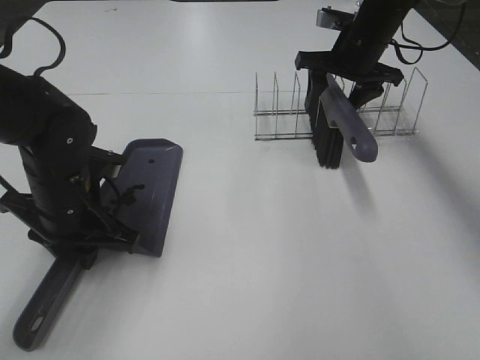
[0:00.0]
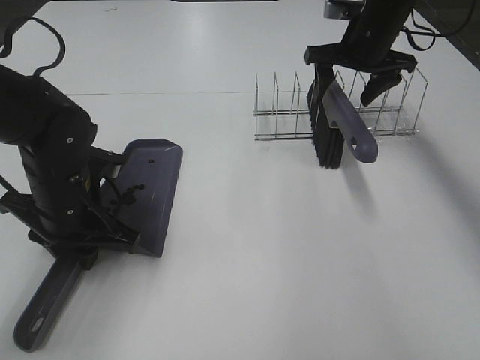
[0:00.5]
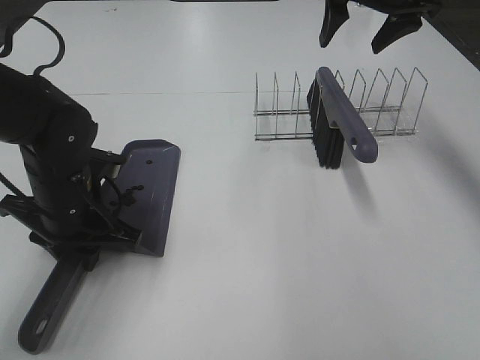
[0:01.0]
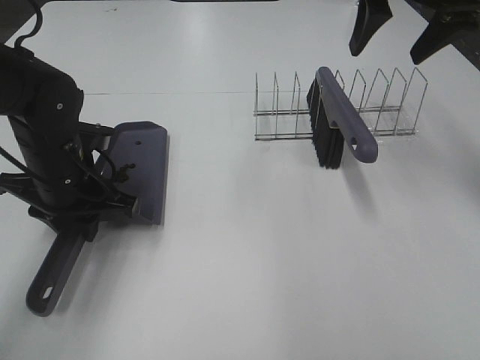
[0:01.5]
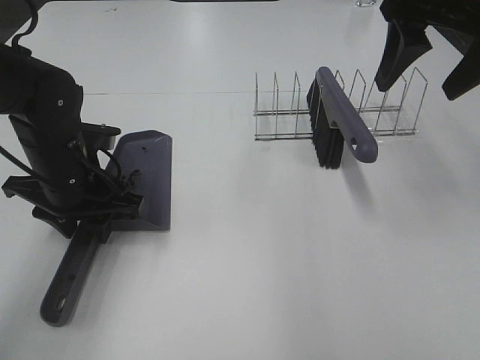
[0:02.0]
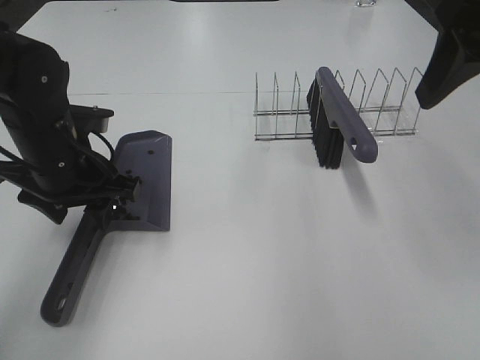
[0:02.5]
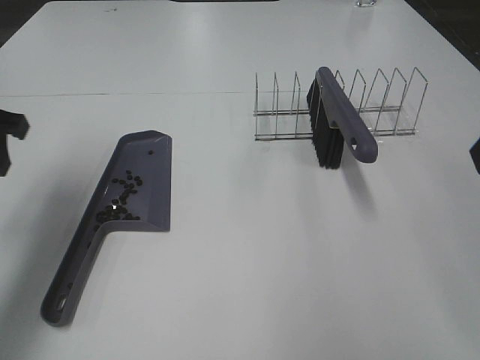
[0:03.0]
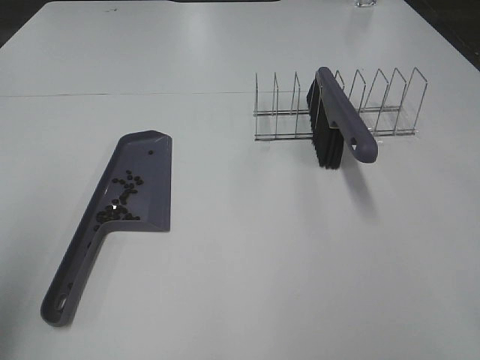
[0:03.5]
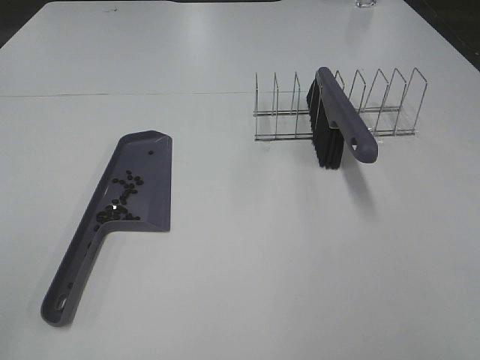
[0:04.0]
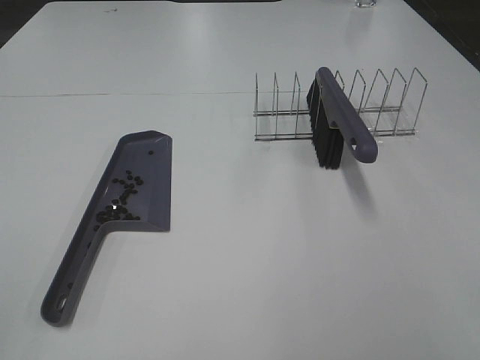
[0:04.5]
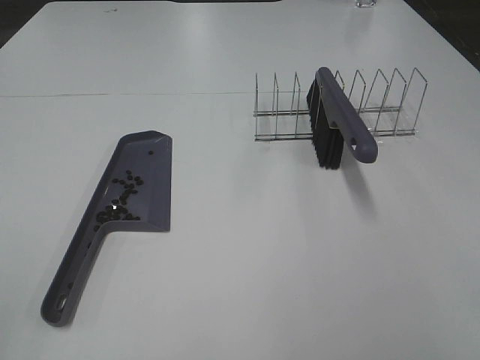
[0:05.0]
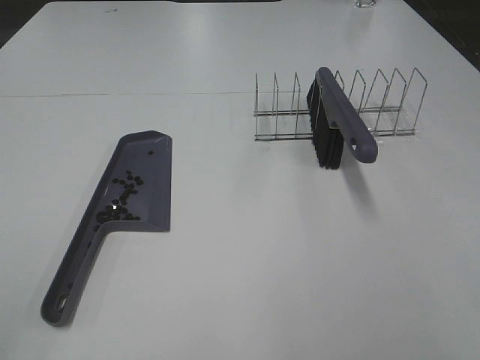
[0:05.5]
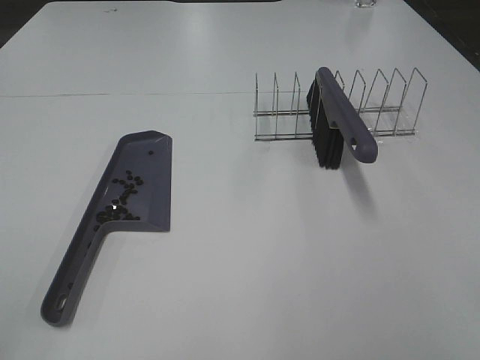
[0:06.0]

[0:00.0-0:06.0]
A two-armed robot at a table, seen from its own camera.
Task of the whole recording: Sweep Coffee Bean.
Step, 0:00.5 to 0:02.0: Left hand:place the dustpan on the table.
0:00.0 to 0:02.0: The right gripper moves backward and upward, roughly 25 cm.
0:02.0 to 0:04.0: The left gripper heads backward, upward and to the left, covering roughly 40 cm; the right gripper travels backward by approximately 30 cm.

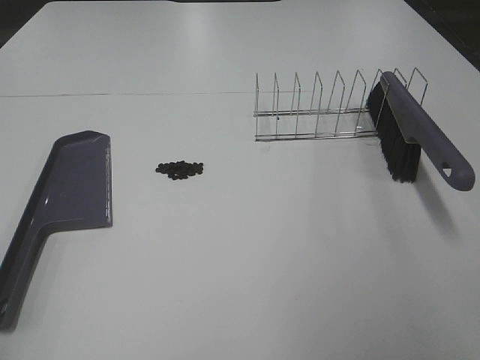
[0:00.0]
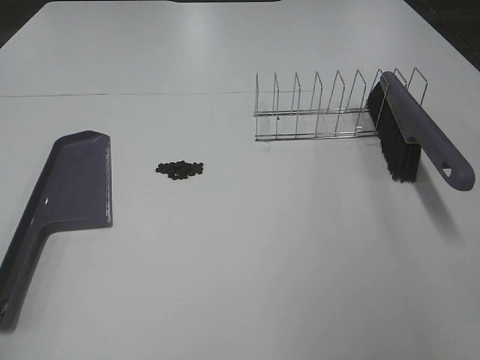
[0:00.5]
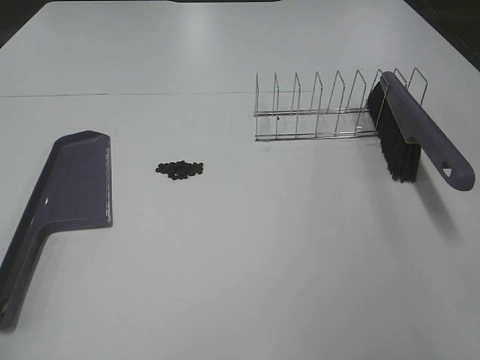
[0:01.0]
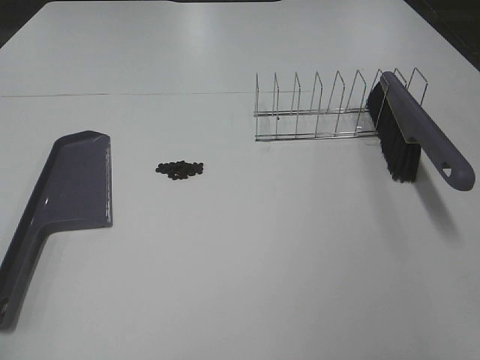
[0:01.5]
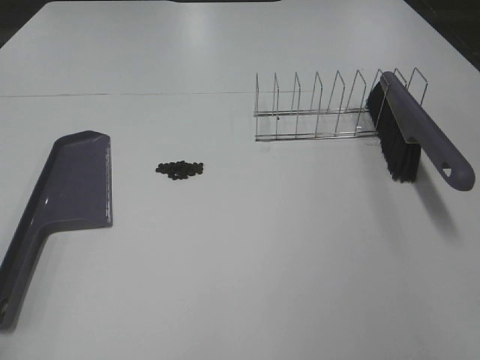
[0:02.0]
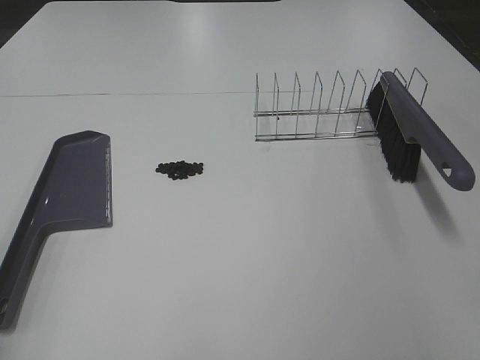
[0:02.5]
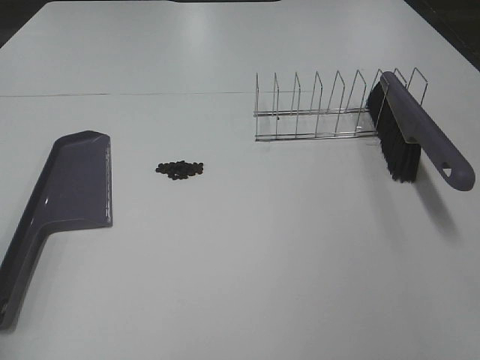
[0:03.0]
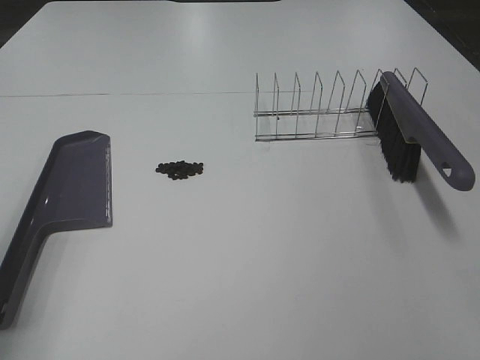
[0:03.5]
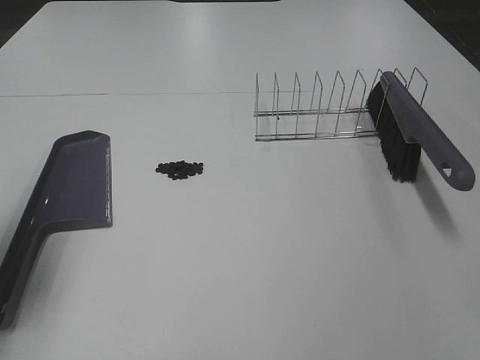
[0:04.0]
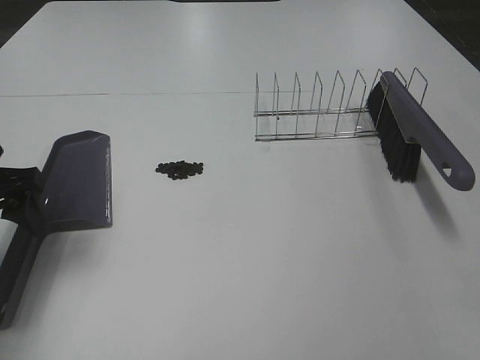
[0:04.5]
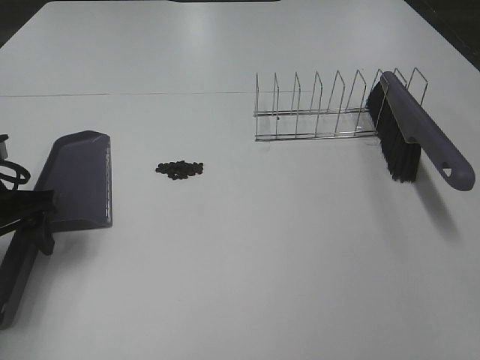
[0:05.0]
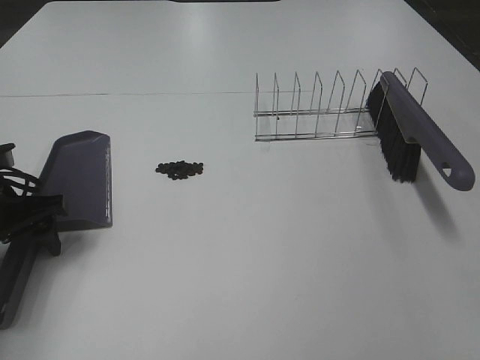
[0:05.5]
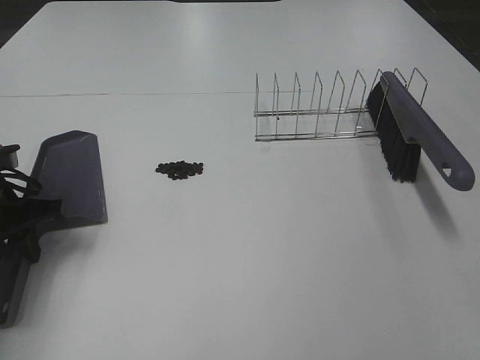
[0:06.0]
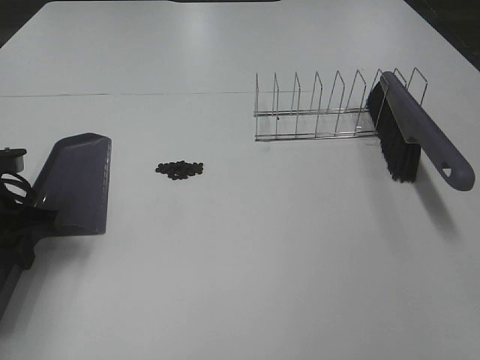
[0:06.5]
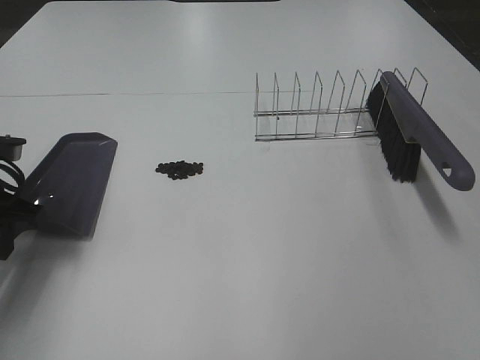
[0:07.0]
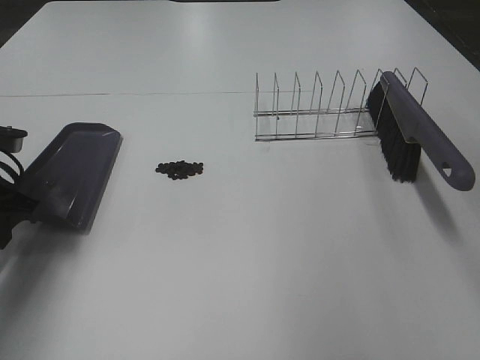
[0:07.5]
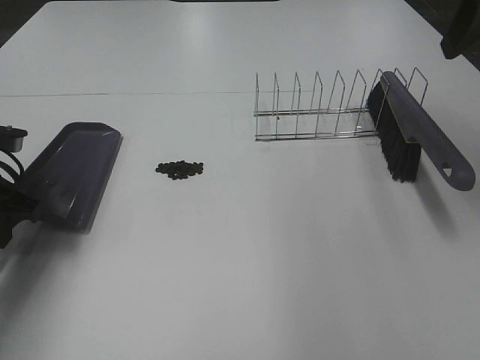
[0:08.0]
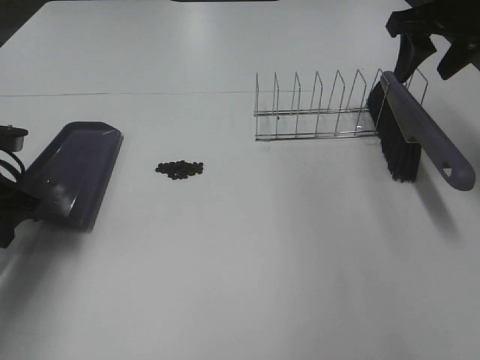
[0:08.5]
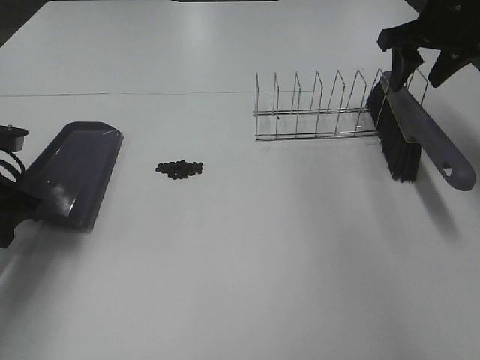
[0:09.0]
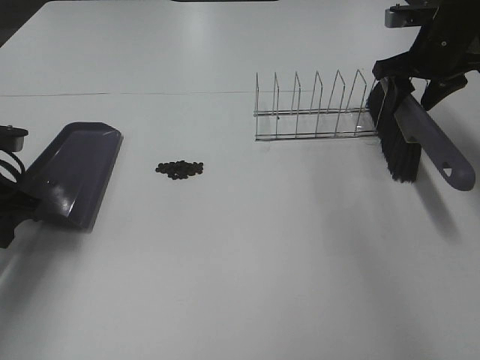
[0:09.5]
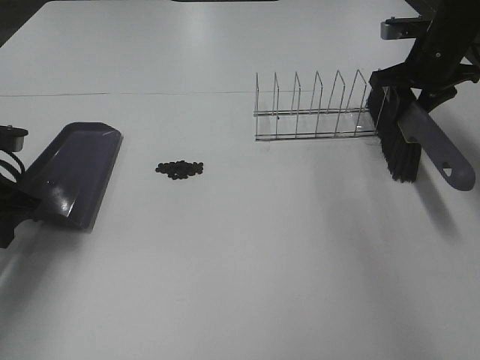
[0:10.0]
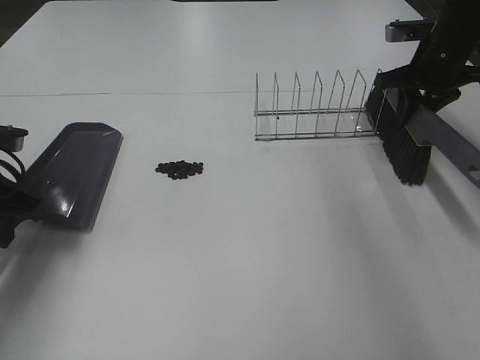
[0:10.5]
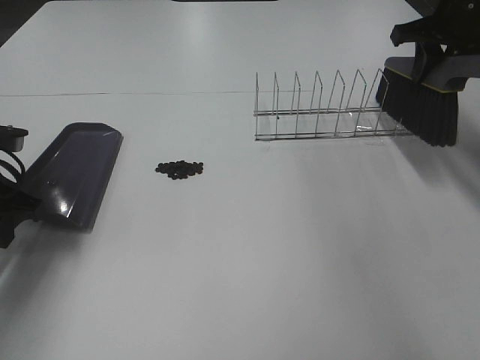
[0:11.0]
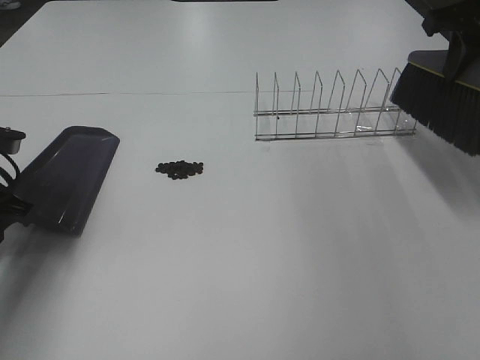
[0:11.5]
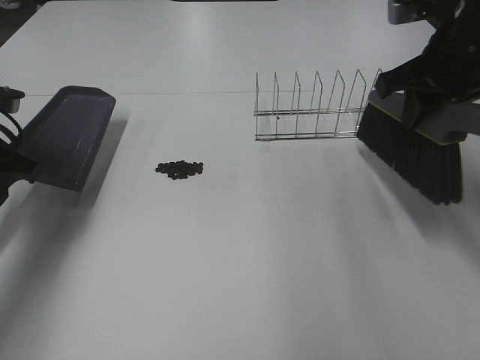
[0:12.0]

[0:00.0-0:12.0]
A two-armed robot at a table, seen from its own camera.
Task of the whole recording: Sweep Coffee Bean.
Step, 0:00.0 to 0:06.0: Left hand: grab the dustpan.
Step, 0:06.5 to 0:10.0: Right hand:grab the broom.
0:02.0 to 0:04.0: The left gripper moves forward, roughly 20 cm.
0:04.0 to 0:06.0: The left gripper heads downward and forward, covering roughly 15 cm, and closes.
0:06.0 to 0:08.0: The right gripper moves forward, approximately 30 cm.
0:08.0 to 0:10.0: The right gripper travels downward and forward by about 25 cm, and closes its fingers.
0:10.0 to 0:12.0: The right gripper moves backward, upward and to the left, about 15 cm.

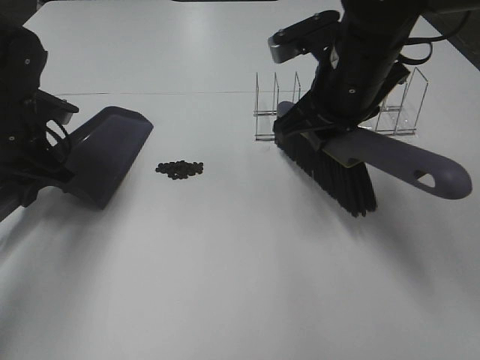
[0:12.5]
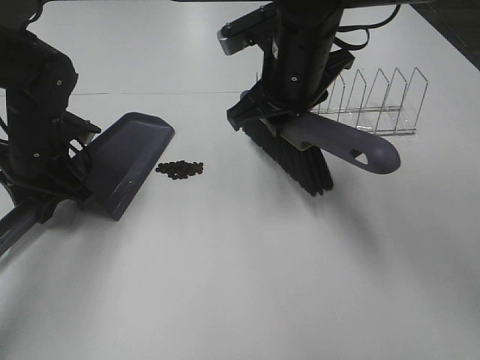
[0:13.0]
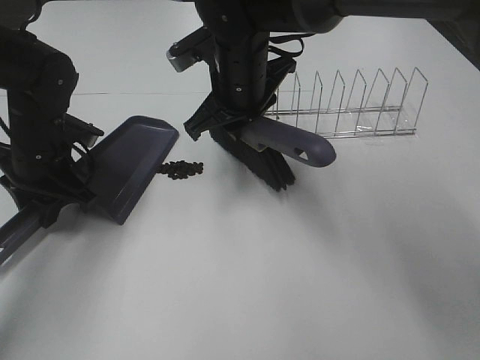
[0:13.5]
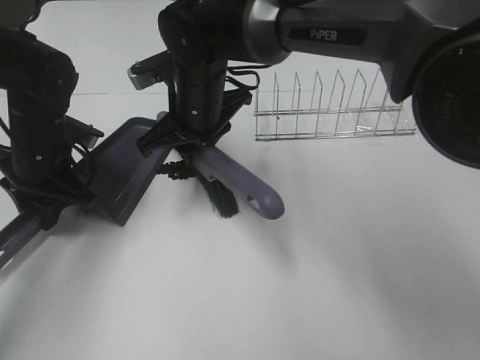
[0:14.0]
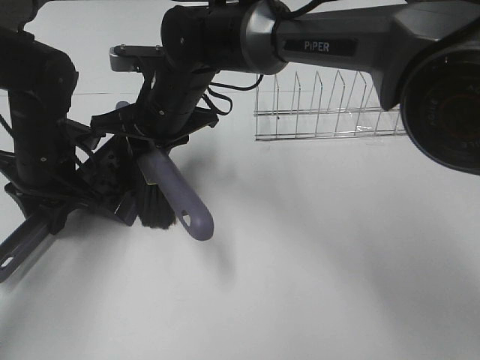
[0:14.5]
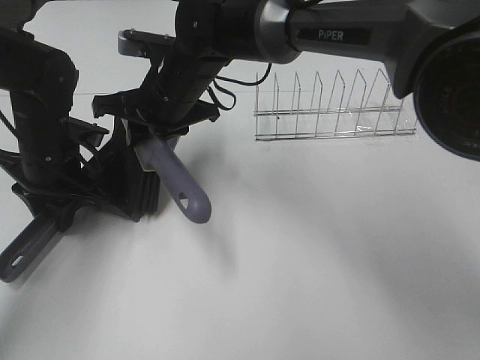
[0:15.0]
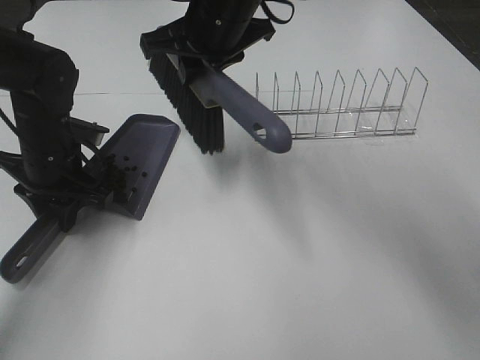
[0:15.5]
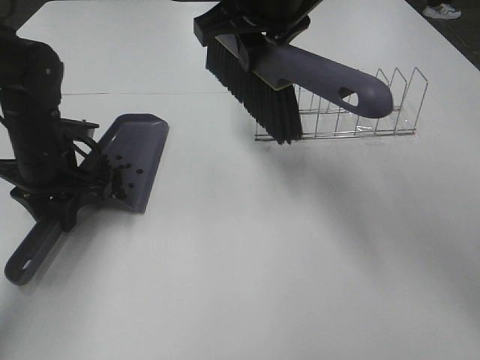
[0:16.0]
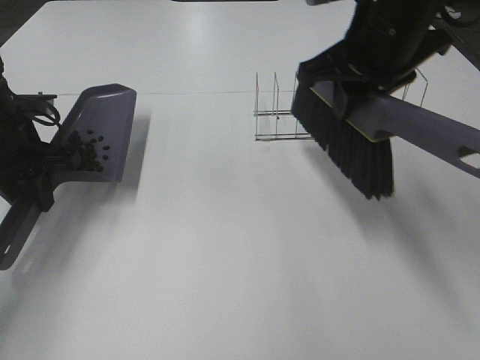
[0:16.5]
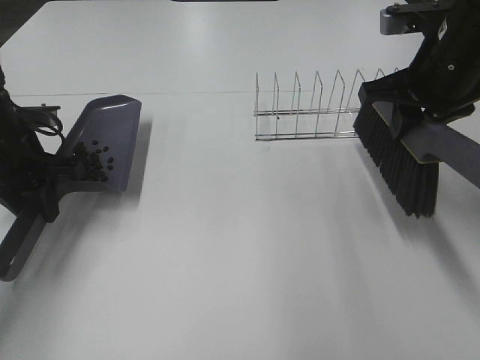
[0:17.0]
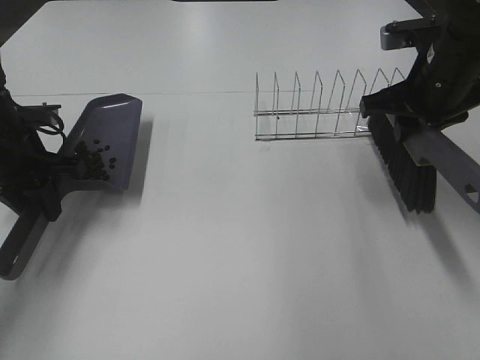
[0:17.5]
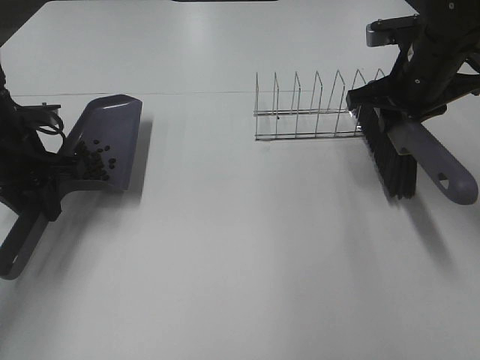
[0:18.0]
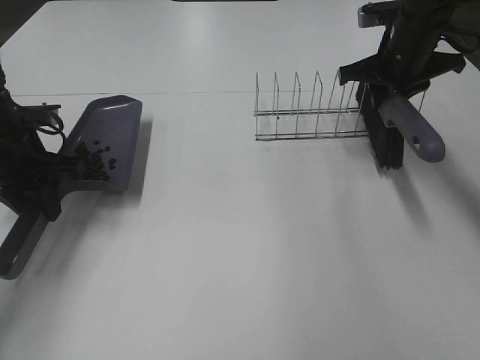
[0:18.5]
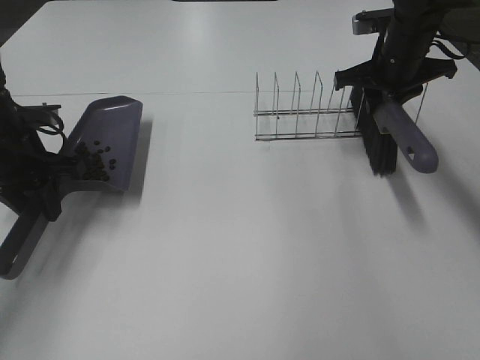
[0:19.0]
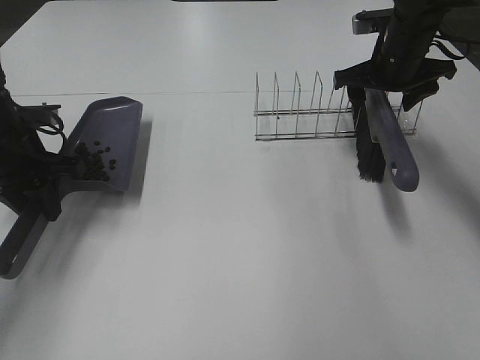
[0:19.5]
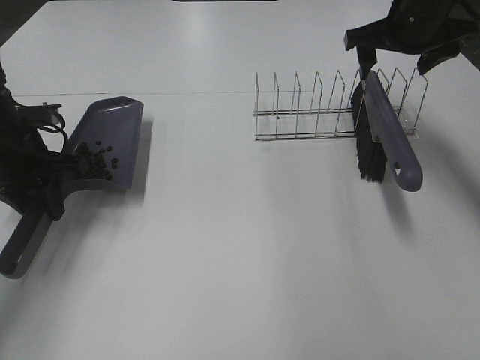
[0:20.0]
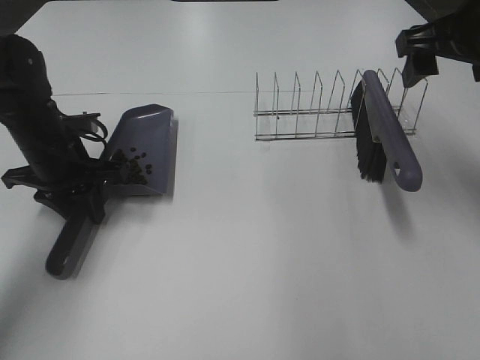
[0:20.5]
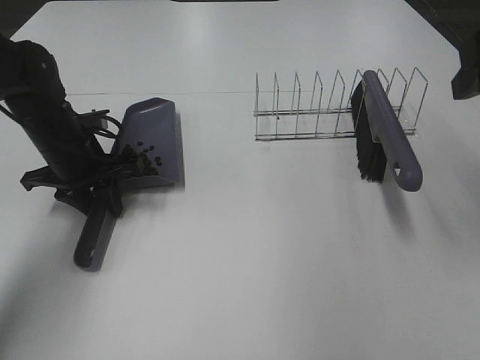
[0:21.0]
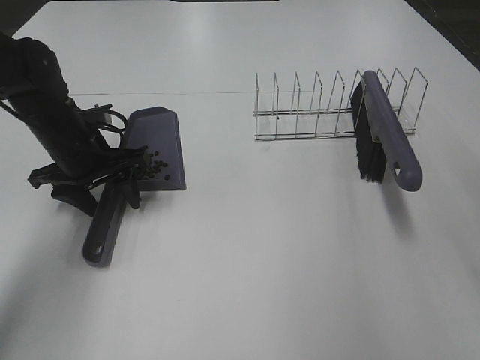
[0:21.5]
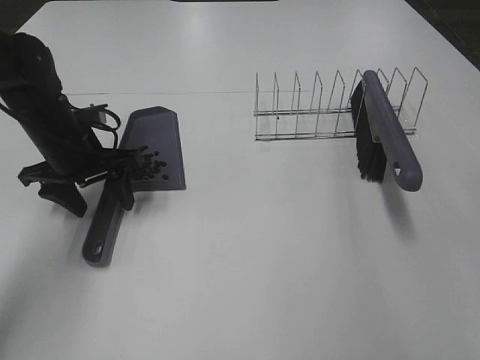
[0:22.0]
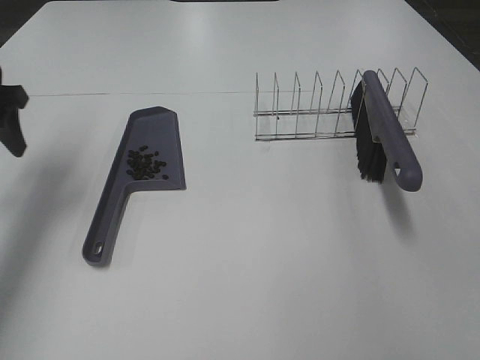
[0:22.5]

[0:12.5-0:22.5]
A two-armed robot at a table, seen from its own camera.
Task of the whole recording: Sweep Coffee Bean.
Step, 0:12.5 to 0:15.0: Right hand:sweep the coffee beans into the dustpan.
Step, 0:15.5 to 0:19.0: Right hand:place the broom on the rack.
Step, 0:19.5 to 0:21.5: Left hand:place the dustpan on the table.
0:12.5 to 0:14.5: The right gripper shifts some 20 cm to the left.
0:14.5 to 0:16.5: The right gripper moves to the right and upward, some 25 cm. Meanwhile the left gripper shifts by some 5 cm.
0:16.5 to 0:18.5: The right gripper shifts about 15 cm forward, to the right and downward.
0:18.5 to 0:20.5: The right gripper travels backward and upward by roughly 15 cm, and opens up.
0:20.5 to 0:22.5: The right gripper shifts about 25 cm backward. The left gripper moves upward and to the left, roughly 15 cm, and opens up.
